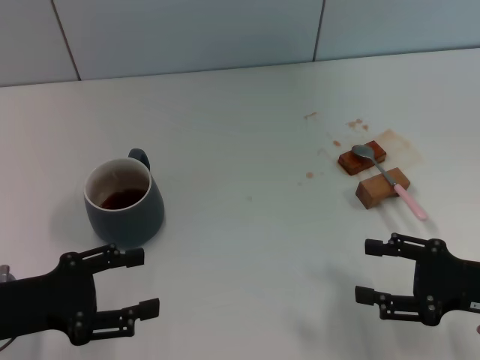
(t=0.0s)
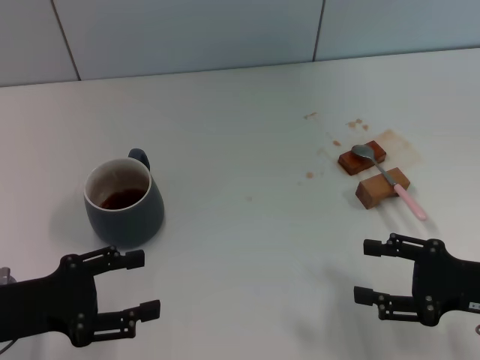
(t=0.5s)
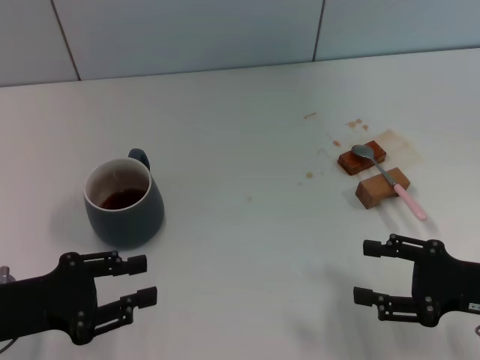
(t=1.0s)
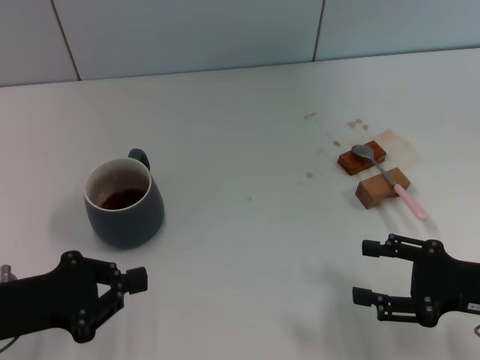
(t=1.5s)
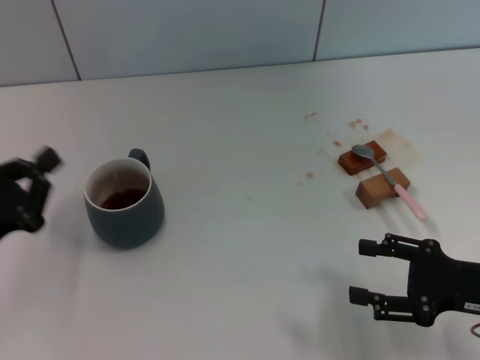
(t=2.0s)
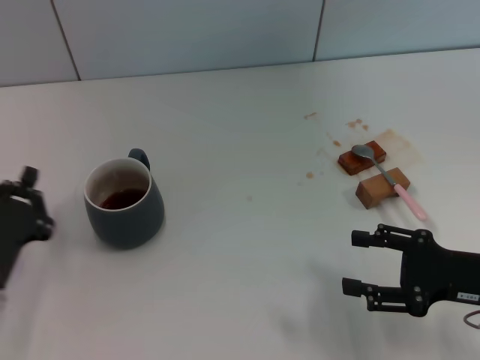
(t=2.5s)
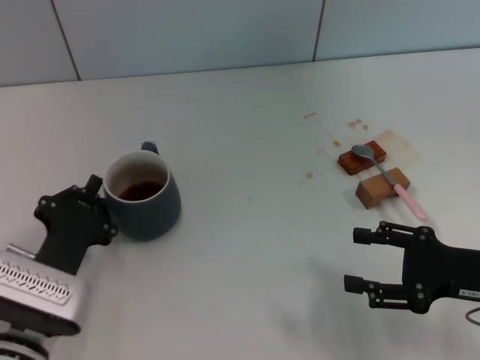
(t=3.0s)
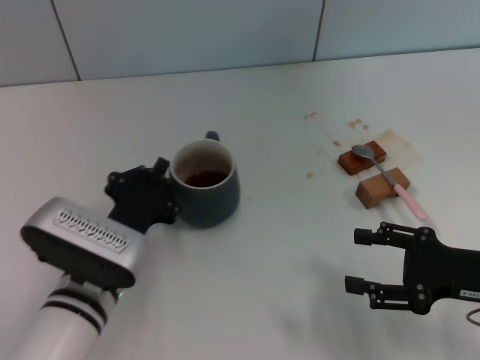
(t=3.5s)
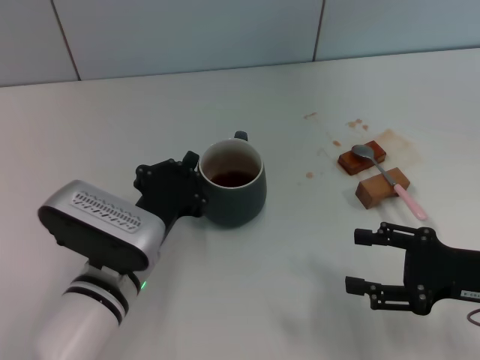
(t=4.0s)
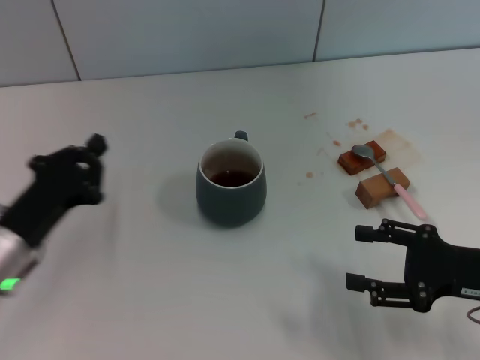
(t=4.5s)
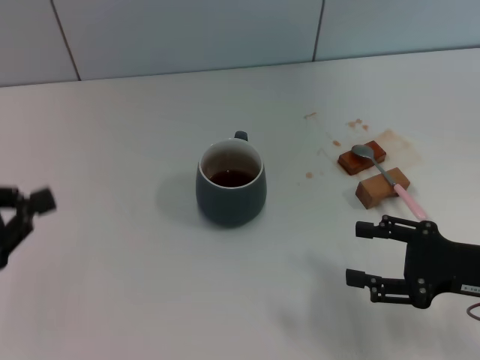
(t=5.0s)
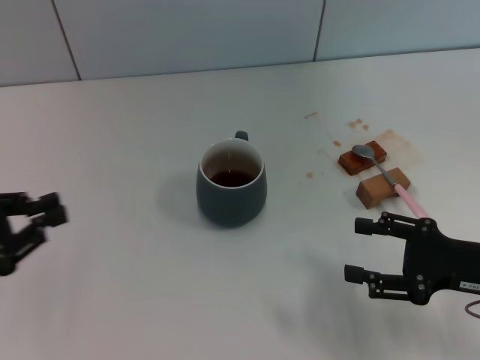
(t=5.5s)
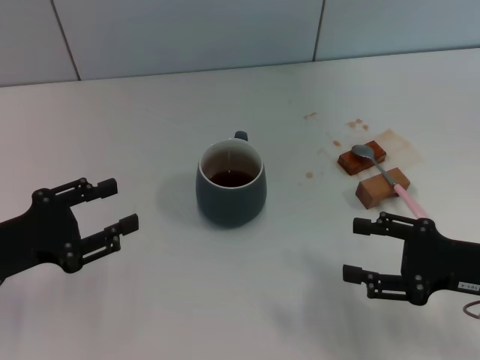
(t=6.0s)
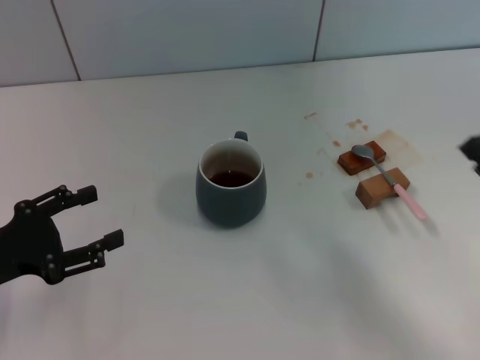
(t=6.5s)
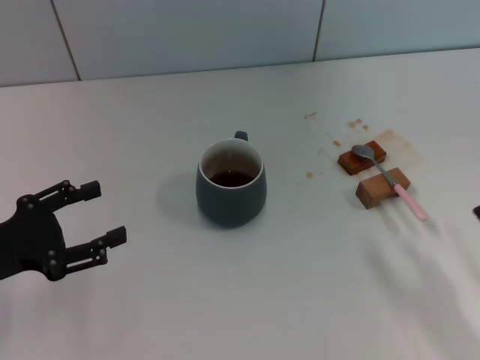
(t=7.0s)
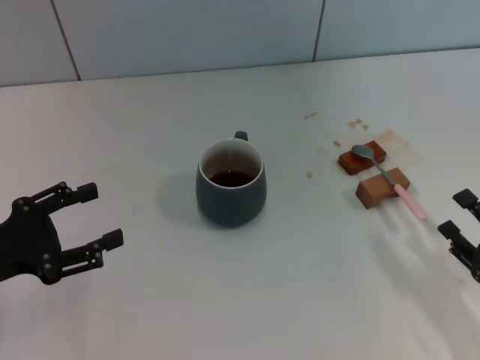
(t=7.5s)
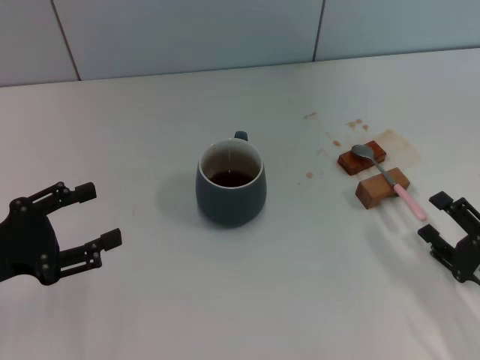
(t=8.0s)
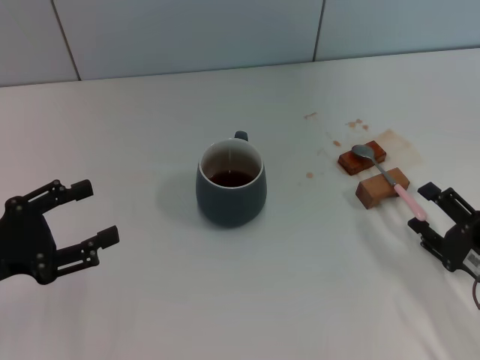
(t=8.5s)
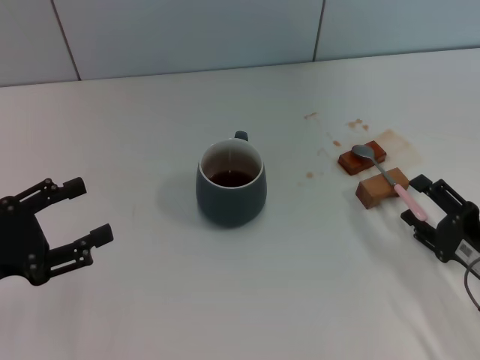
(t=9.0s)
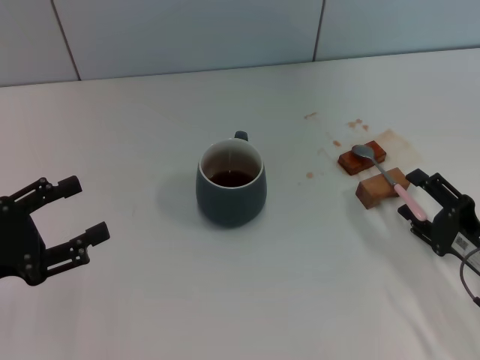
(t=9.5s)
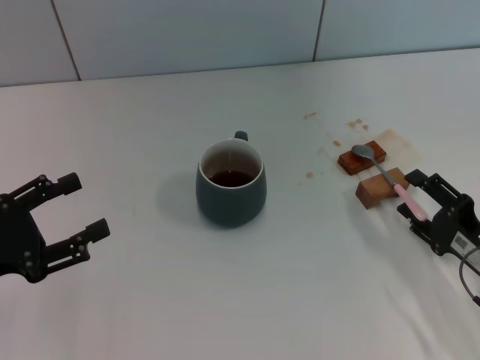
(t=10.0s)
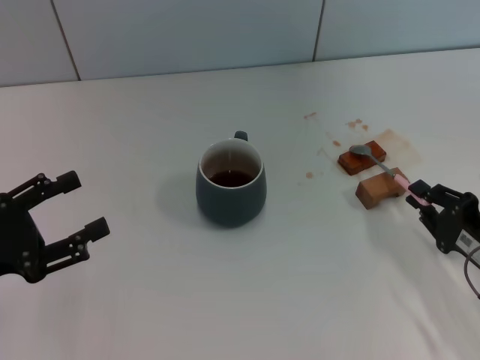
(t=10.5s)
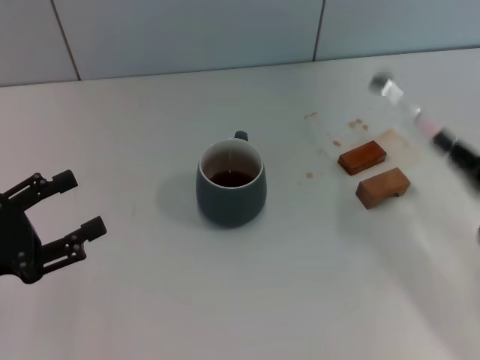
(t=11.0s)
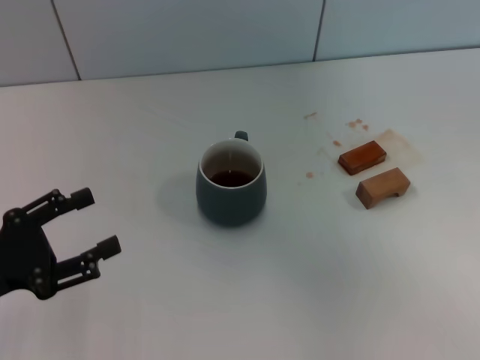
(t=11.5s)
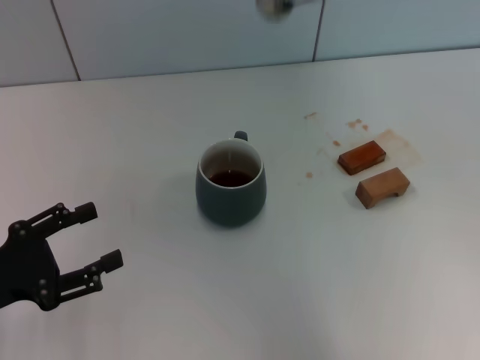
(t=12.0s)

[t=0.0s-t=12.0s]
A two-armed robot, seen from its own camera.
Task of the whole recording: Move the grey cup to the center, lift the pink spoon, stir it three times in the cup, and put the spoon into the cup.
Step, t=0.0s to t=4.0s: Move the cup with coffee to the center of view with the left gripper.
Step, t=4.5s to t=11.0s: Pick up the spoon with the right gripper.
t=0.0s to t=2.0s: The left gripper closes its fingers.
t=2.0s to t=4.0s: The left gripper is displaced to the right by some 20 cm.
t=4.0s to t=6.0s: The left gripper moves to the left, approximately 15 cm, and opens its fingers.
t=6.0s to t=8.0s: The right gripper goes some 10 cm downward and backward; the left gripper opens its fingers.
t=8.0s to t=10.0s: There are only small adjustments of the grippers.
t=10.0s to t=12.0s: The right gripper travels upward by roughly 35 cm, and closes up.

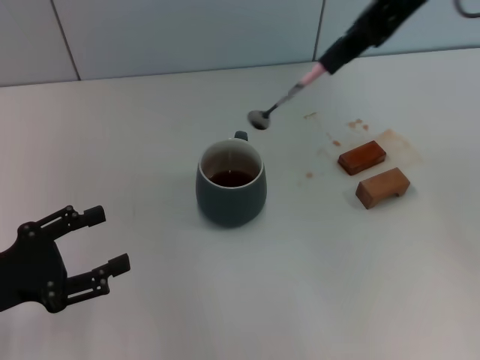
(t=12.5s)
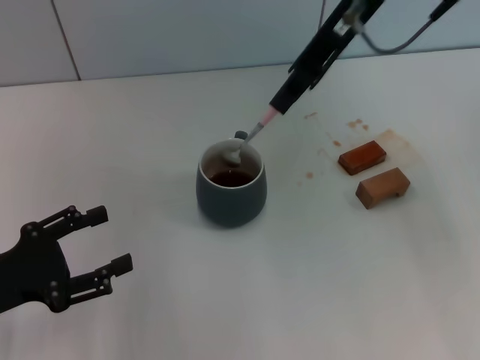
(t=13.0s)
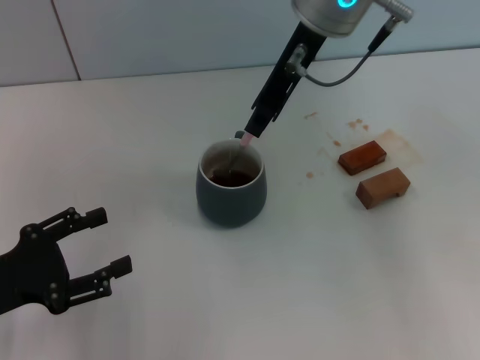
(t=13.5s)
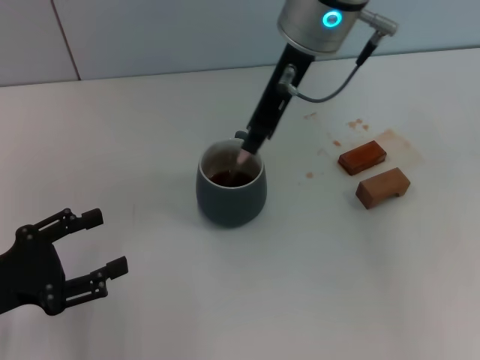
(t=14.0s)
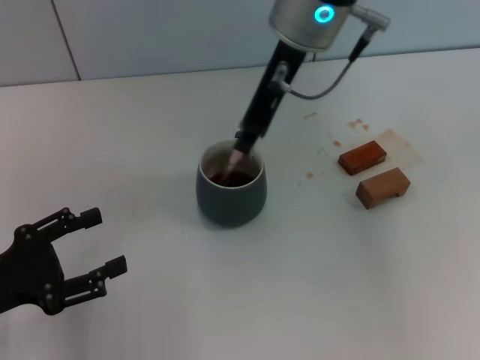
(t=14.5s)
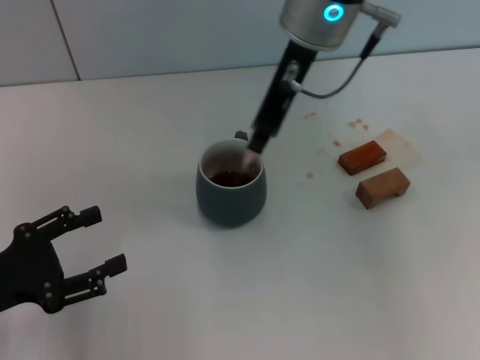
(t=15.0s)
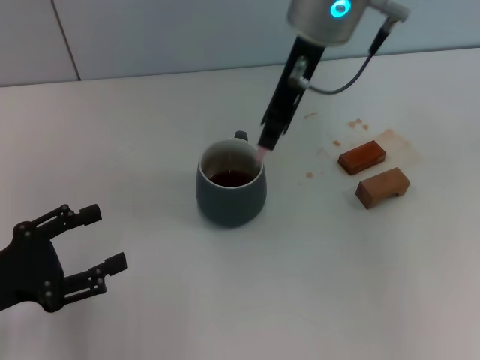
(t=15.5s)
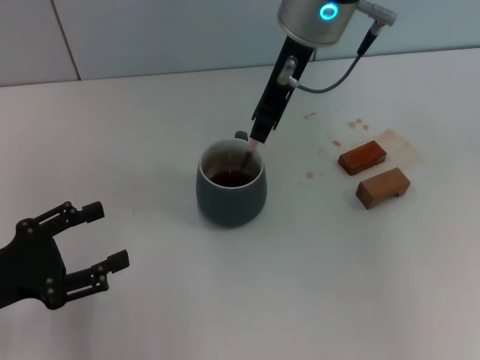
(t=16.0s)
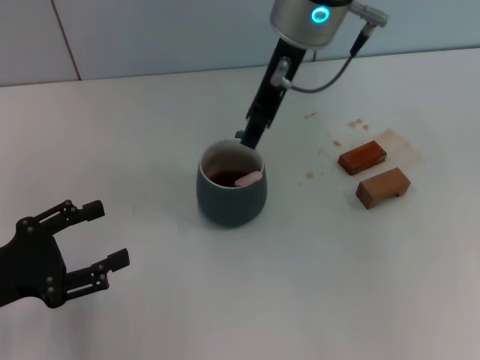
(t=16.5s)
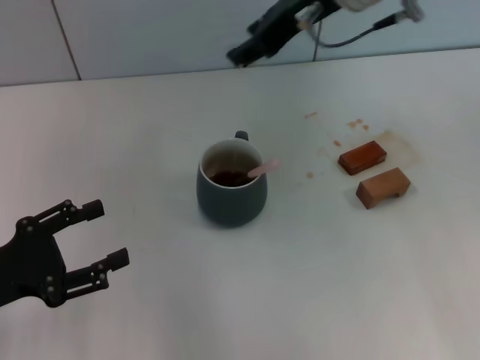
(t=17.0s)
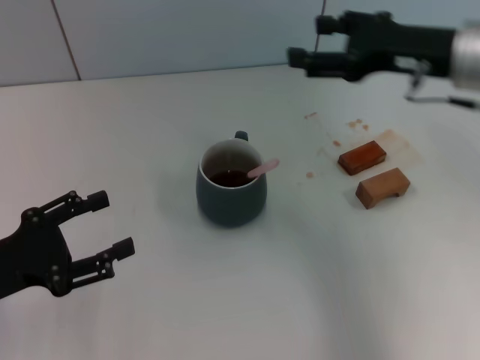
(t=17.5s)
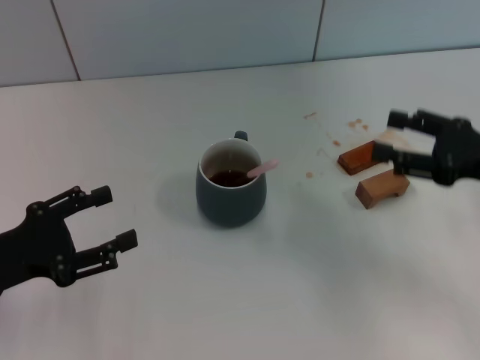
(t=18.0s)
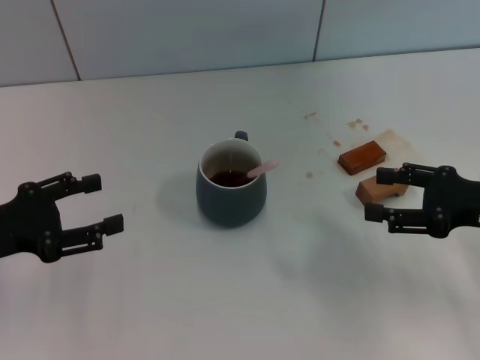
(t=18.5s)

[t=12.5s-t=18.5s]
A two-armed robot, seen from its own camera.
Task of the whole recording: Move the grey cup to the center, lift the pink spoon, stir it three times in the cup, and put the spoon into the cup.
Step, t=12.5s to t=16.5s: Stir the coffee in the cup with the right gripper.
t=12.5s to t=14.5s: The right gripper moves to the left and downward, some 15 cm.
t=14.5s to t=16.5s: The grippers move only a little.
t=16.5s to t=18.5s: The left gripper moves roughly 5 cm; the right gripper goes roughly 35 cm to the right, downward and backward, and opens.
